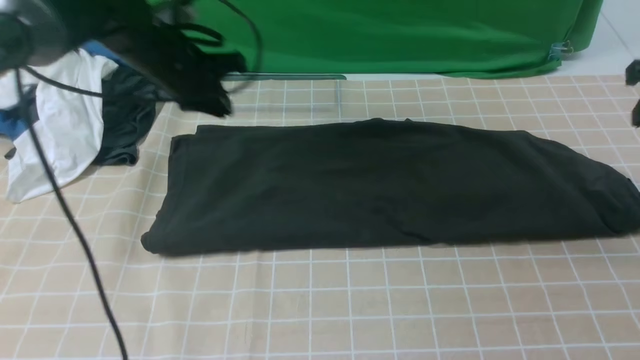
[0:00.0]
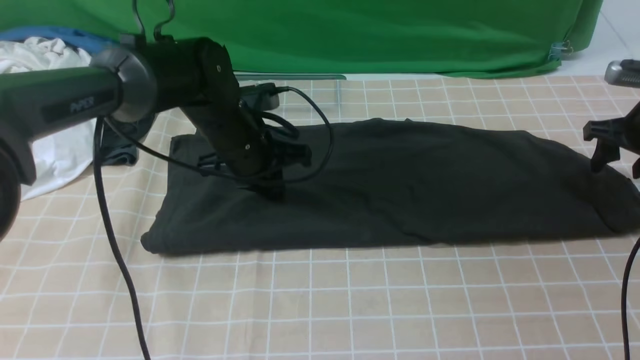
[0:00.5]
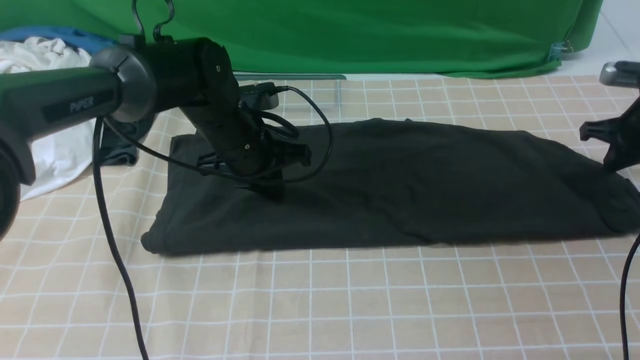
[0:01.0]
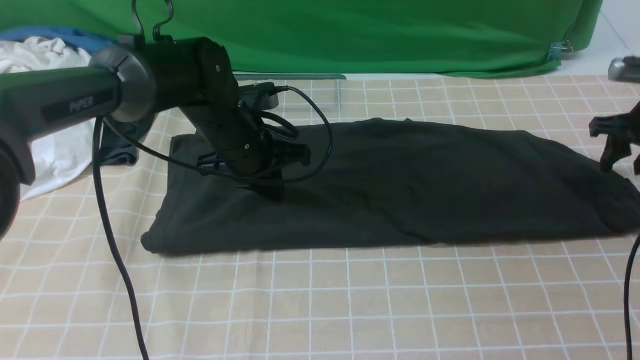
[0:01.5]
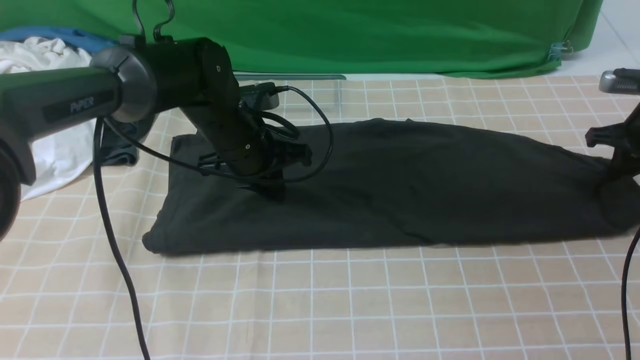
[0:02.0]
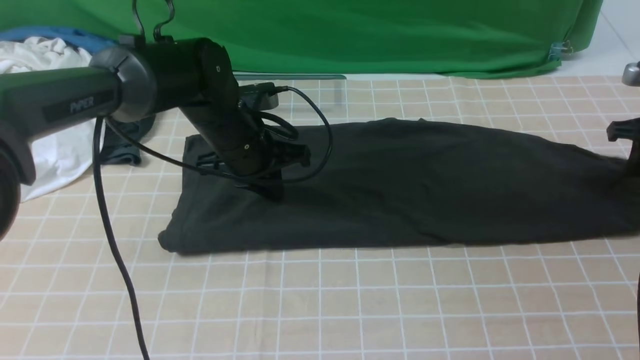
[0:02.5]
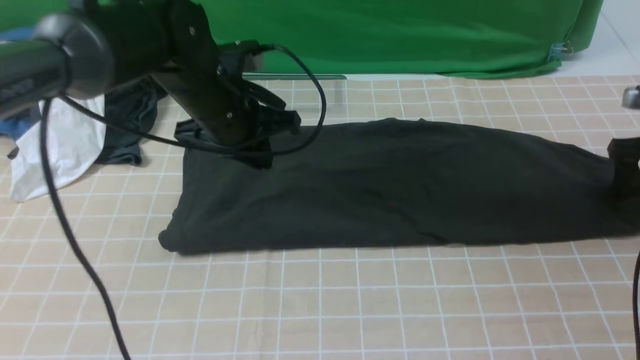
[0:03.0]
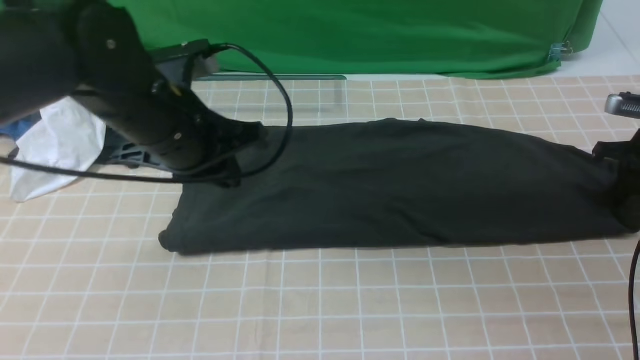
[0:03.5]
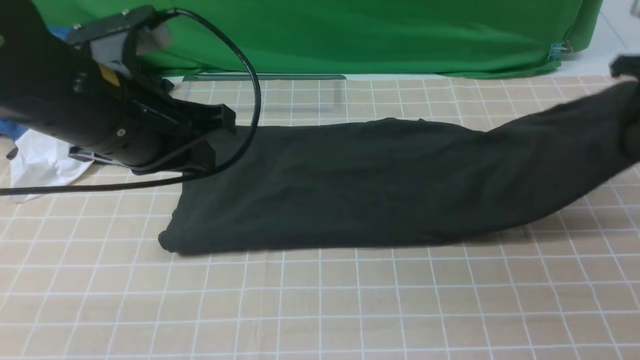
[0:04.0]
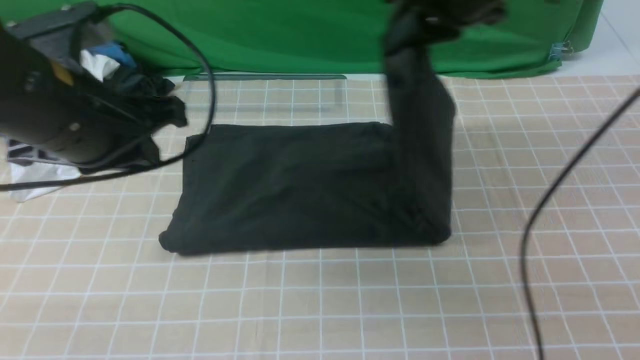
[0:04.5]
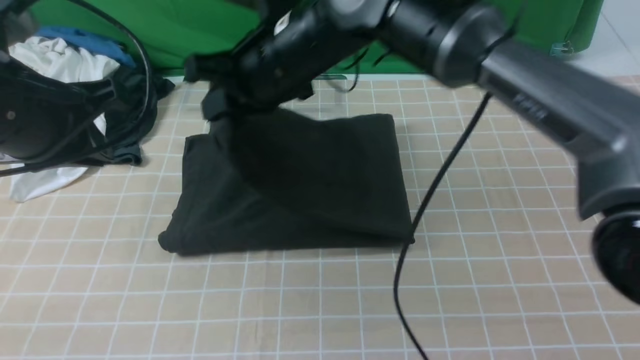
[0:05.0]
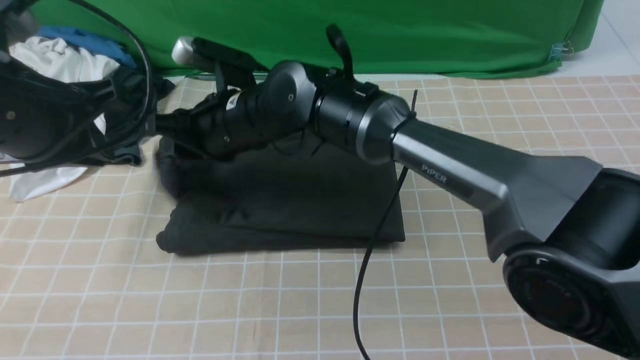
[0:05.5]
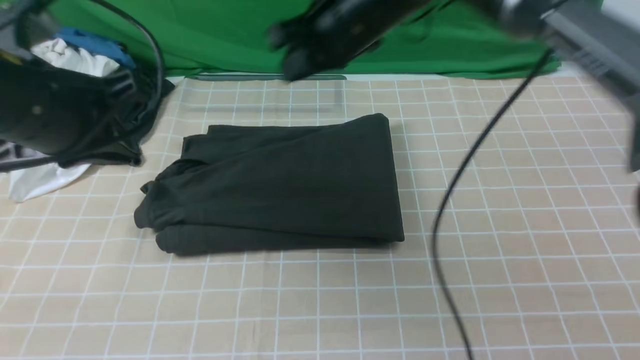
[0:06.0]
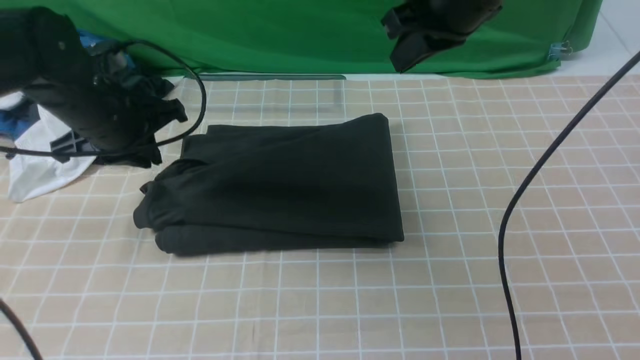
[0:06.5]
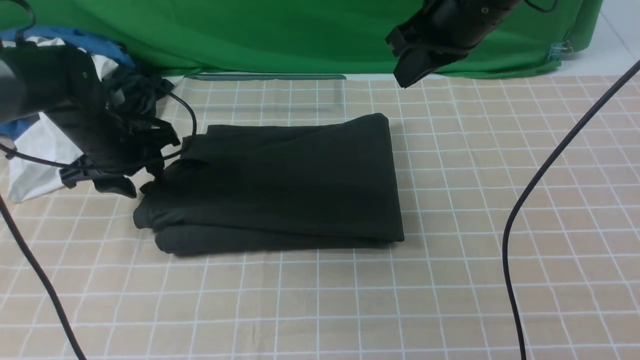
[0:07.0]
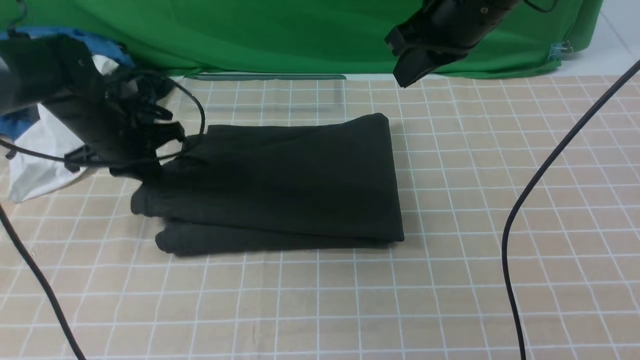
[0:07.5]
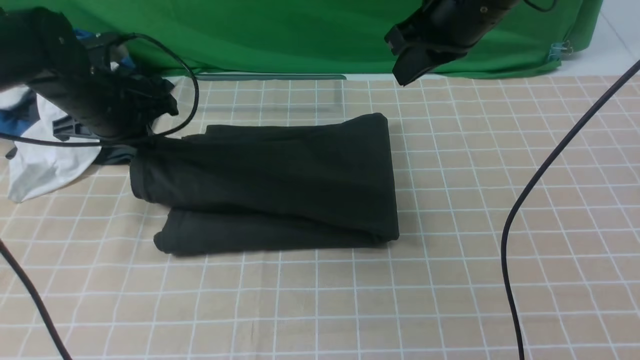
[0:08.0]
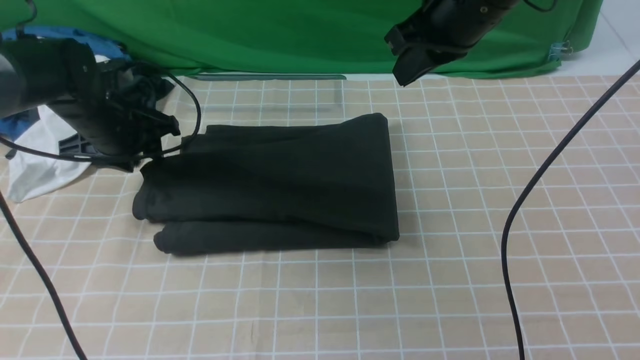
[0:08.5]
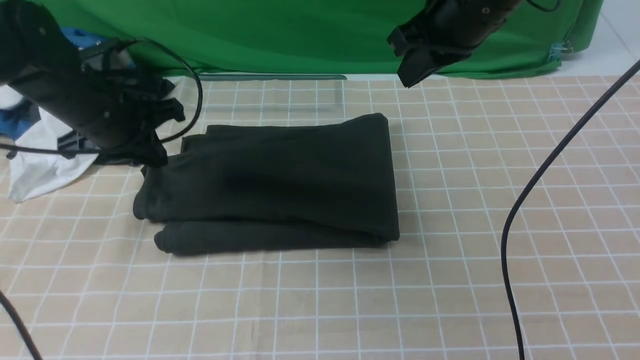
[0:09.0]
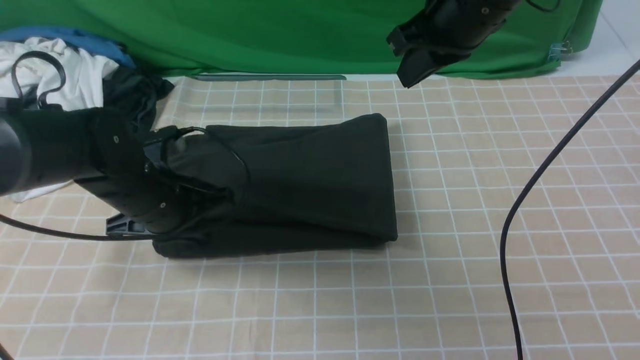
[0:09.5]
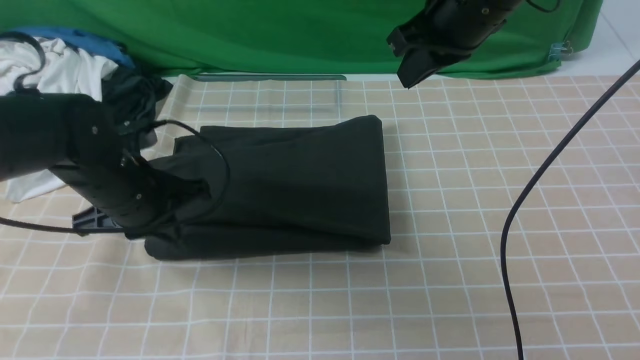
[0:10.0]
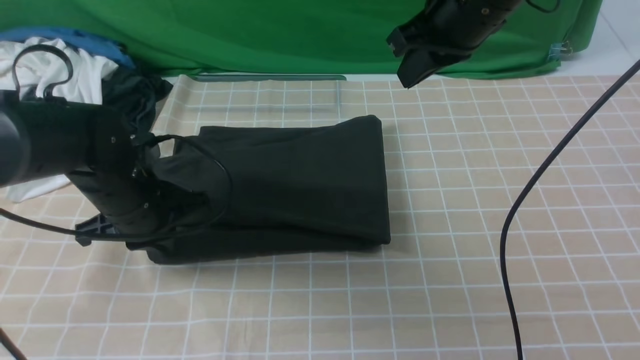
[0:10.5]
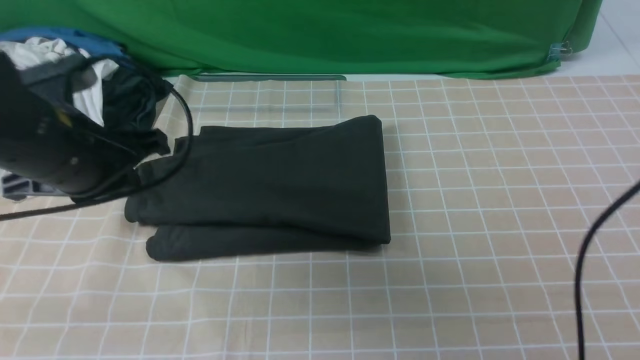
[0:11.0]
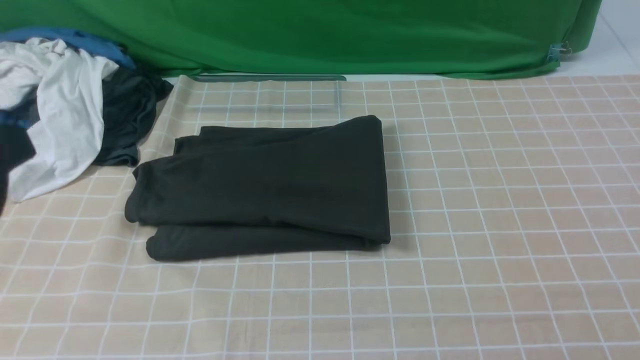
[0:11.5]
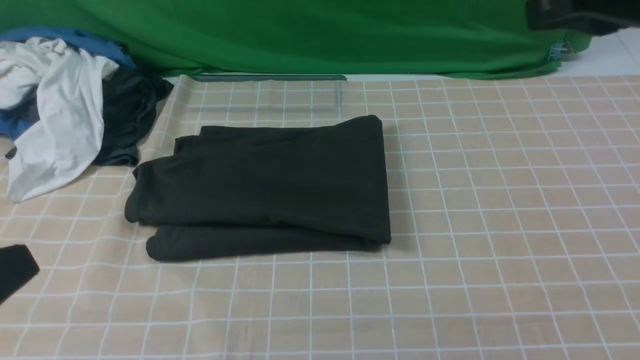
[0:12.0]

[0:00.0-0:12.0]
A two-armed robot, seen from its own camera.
Step, 0:00.0 to 0:03.5: use the right arm to clamp the right edge of the fabric.
Step, 0:04.0 to 0:05.5: use the right arm to drag the right edge of the fabric to the left and folds it over the left edge.
0:00.0 to 0:02.0: The right gripper shifts about 10 cm downward and forward, and closes its fingers. The left gripper goes approximately 5 cm to the right.
0:02.0 to 0:04.0: The right gripper moves upward and to the left, approximately 15 cm, and opens and closes again; the left gripper shifts some 20 cm upward and backward.
0:04.0 to 0:06.0: The right gripper goes roughly 30 cm to the left, and opens, then closes once more. The left gripper travels to the left by roughly 5 cm.
0:06.0 to 0:08.0: The right gripper heads to the right, covering approximately 10 cm, while the left gripper shifts about 15 cm forward and downward, and opens, then closes once more.
0:08.0 to 0:10.0: The left gripper goes some 10 cm backward and to the right, and opens, then closes again.
0:10.0 to 0:12.0: The right gripper shifts approximately 15 cm backward, upward and to the right. The left gripper is displaced backward and upward by approximately 30 cm.

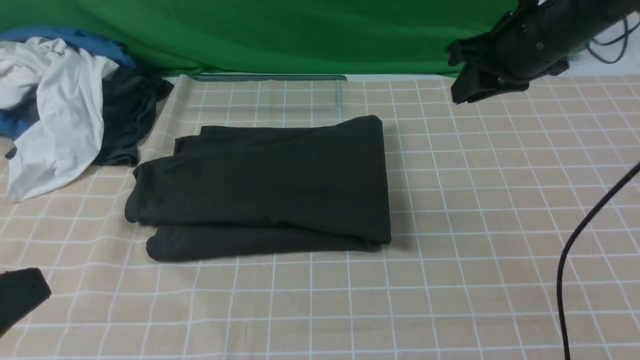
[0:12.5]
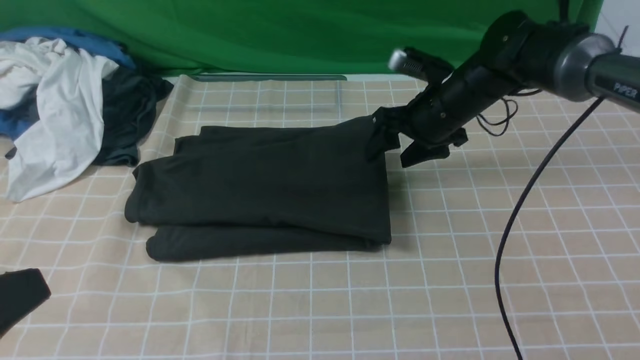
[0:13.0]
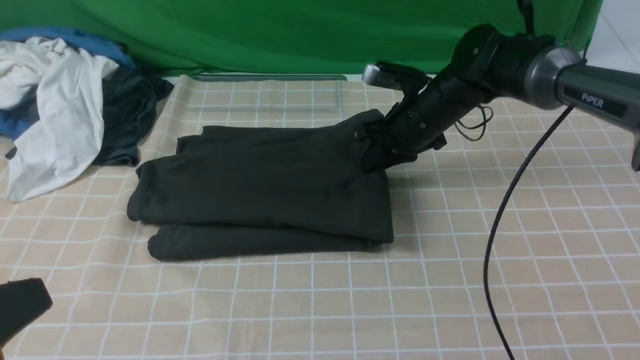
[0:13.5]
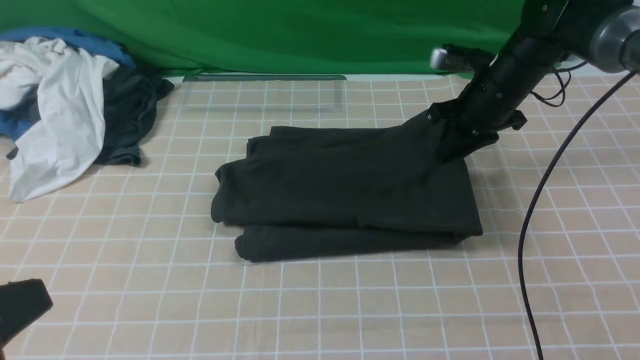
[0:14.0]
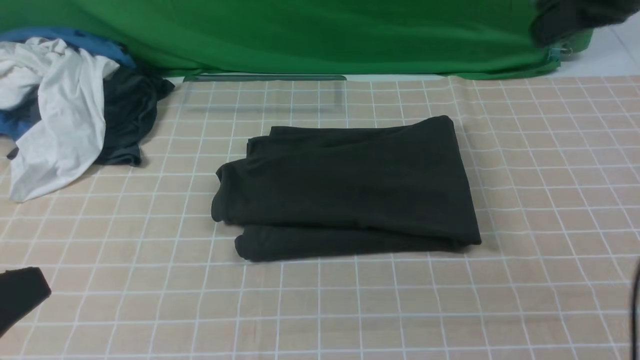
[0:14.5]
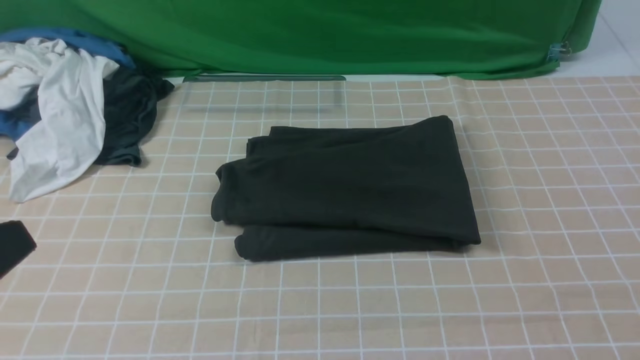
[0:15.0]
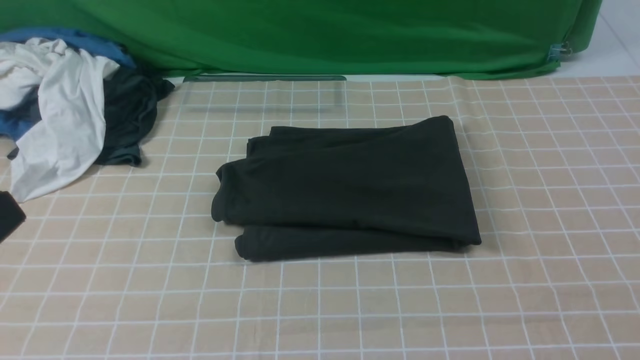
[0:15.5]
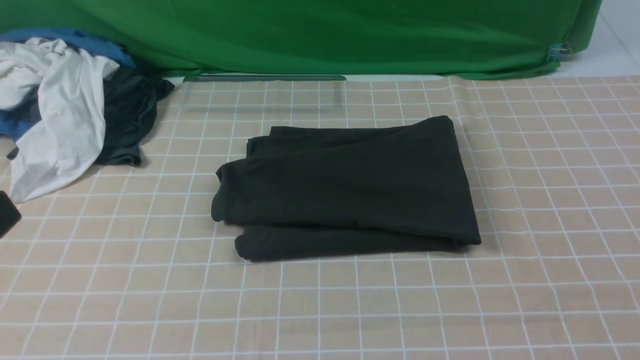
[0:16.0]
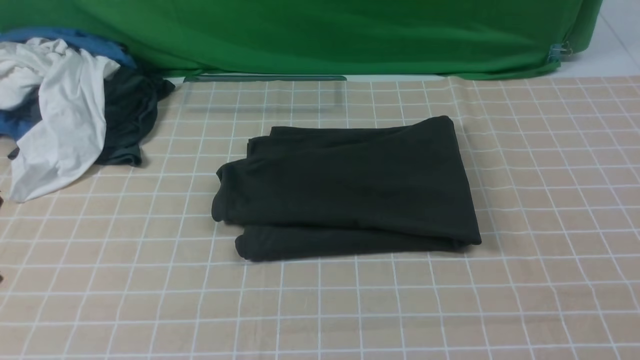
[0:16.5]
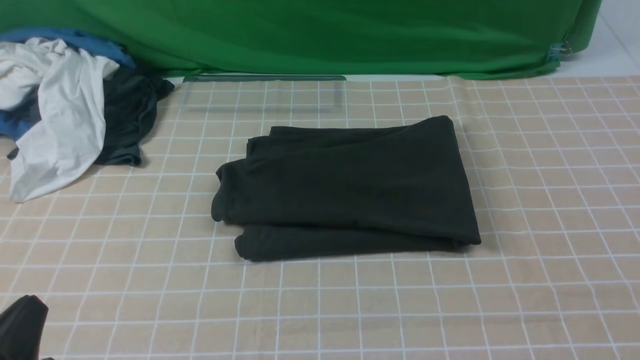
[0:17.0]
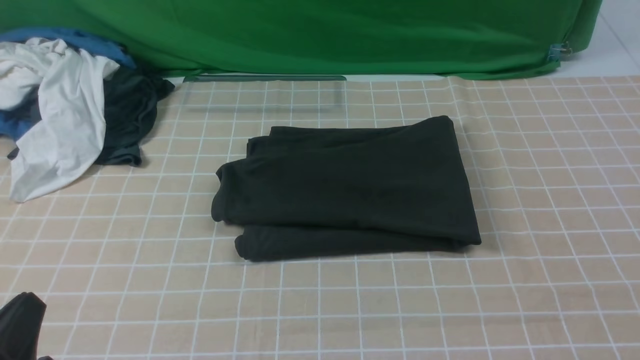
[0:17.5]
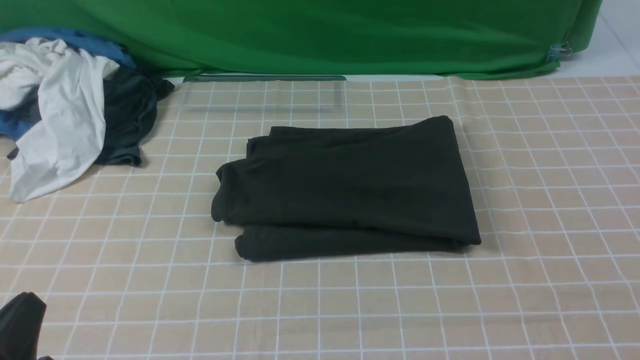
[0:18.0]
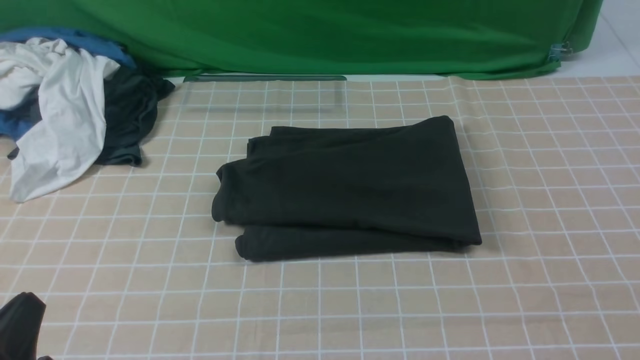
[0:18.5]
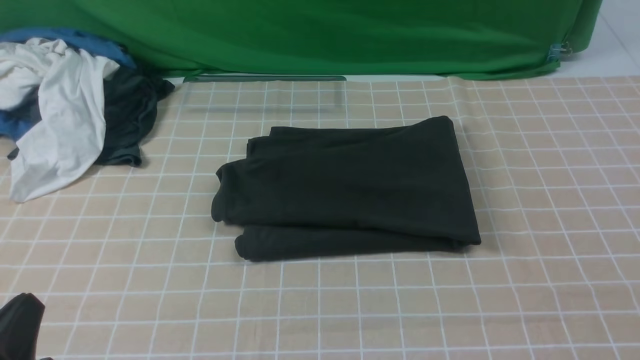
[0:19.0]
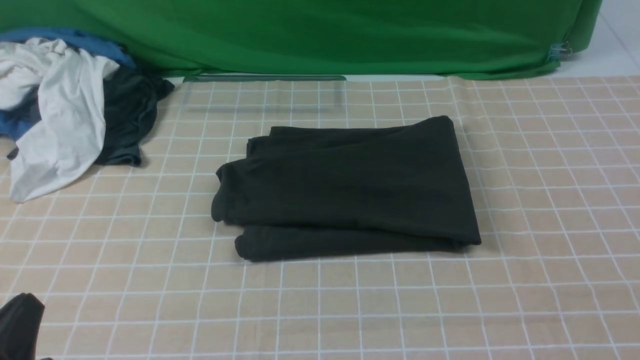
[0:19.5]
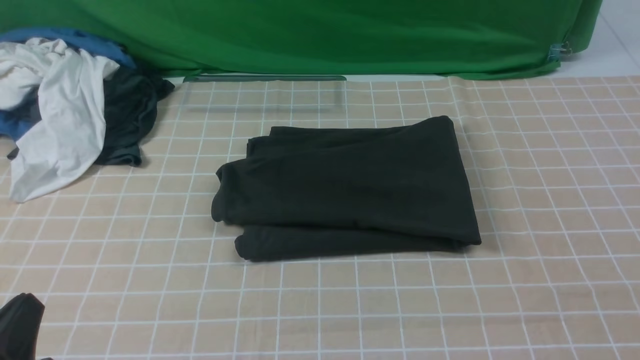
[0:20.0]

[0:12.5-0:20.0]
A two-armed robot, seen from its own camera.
0:12.5 to 0:14.5: The right gripper is displaced upward and backward by approximately 15 cm, and closes its fingers.
0:14.5 to 0:16.5: The right gripper shifts roughly 30 cm backward, and opens.
0:16.5 to 0:18.0: The left gripper goes some 10 cm downward.
